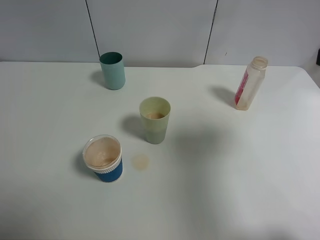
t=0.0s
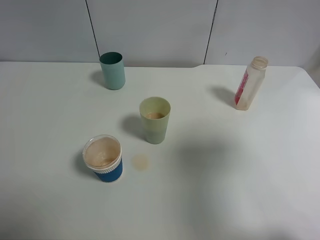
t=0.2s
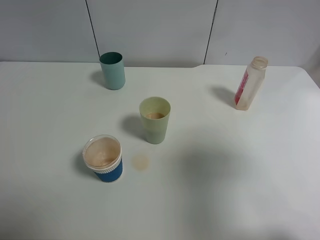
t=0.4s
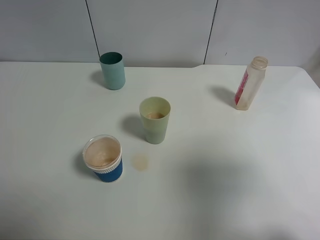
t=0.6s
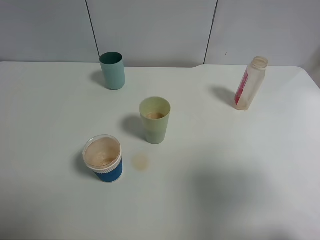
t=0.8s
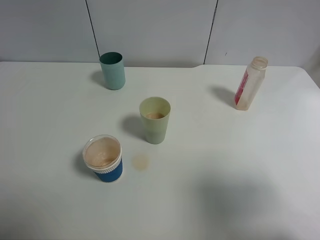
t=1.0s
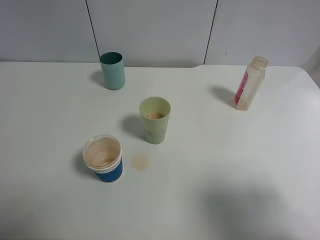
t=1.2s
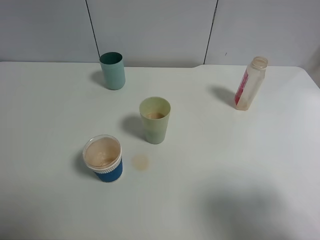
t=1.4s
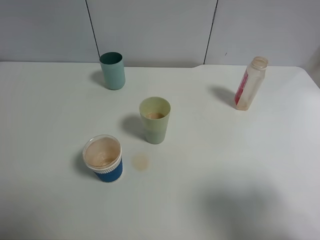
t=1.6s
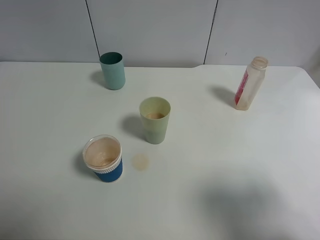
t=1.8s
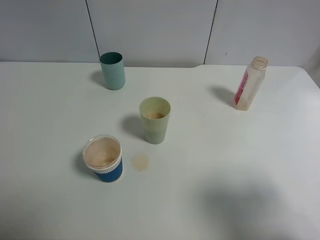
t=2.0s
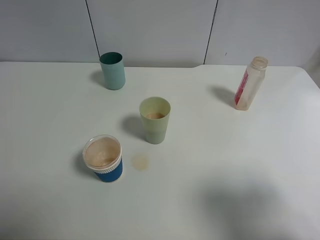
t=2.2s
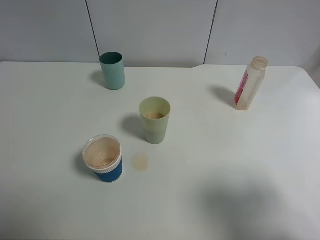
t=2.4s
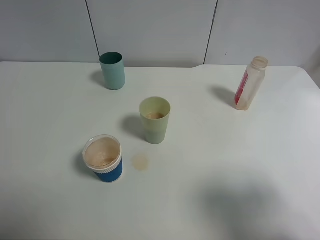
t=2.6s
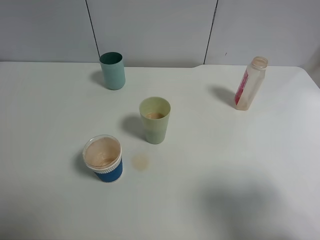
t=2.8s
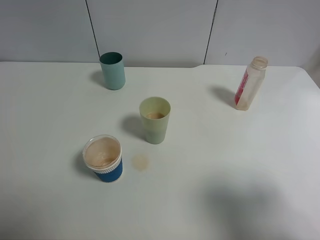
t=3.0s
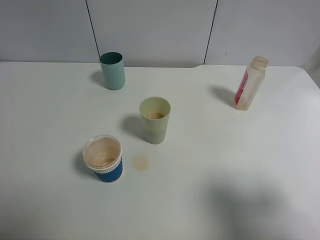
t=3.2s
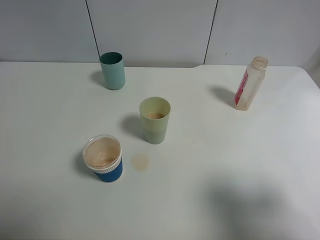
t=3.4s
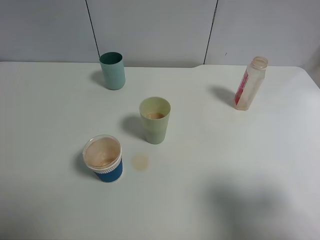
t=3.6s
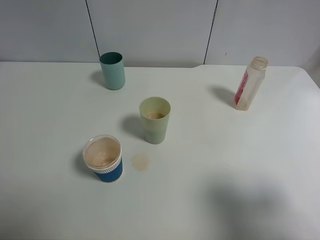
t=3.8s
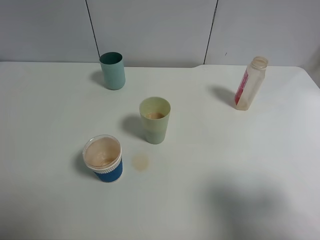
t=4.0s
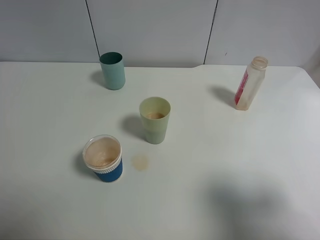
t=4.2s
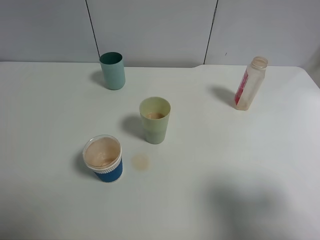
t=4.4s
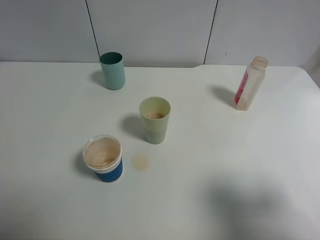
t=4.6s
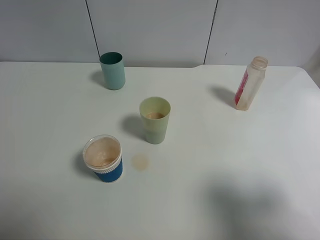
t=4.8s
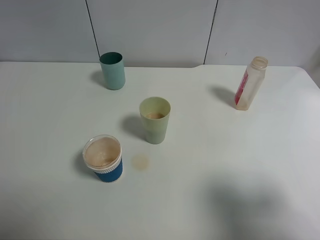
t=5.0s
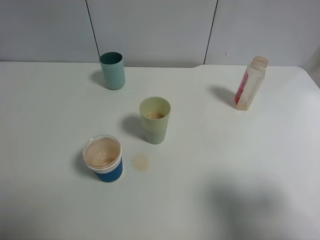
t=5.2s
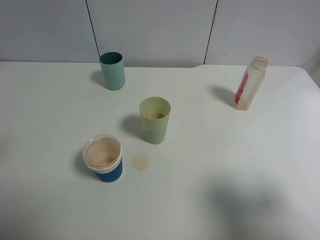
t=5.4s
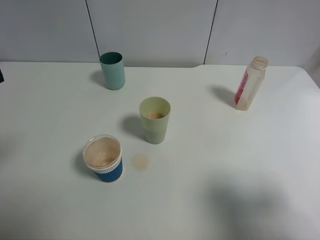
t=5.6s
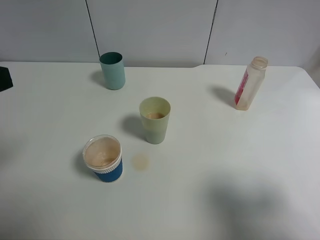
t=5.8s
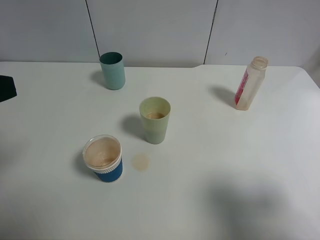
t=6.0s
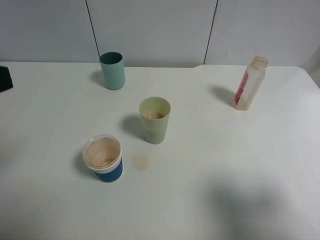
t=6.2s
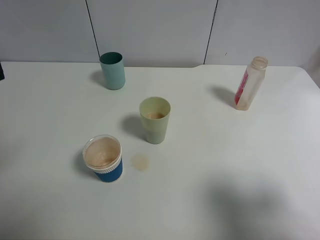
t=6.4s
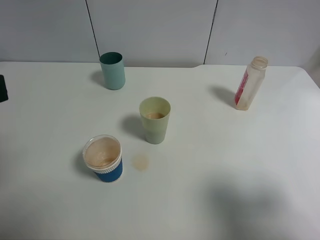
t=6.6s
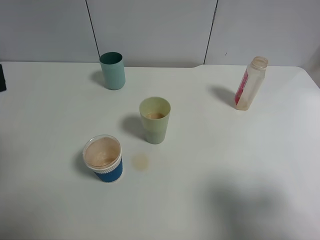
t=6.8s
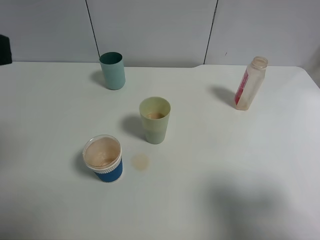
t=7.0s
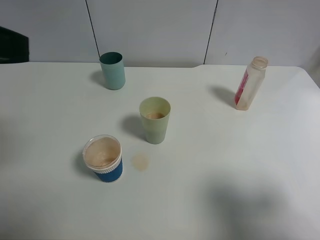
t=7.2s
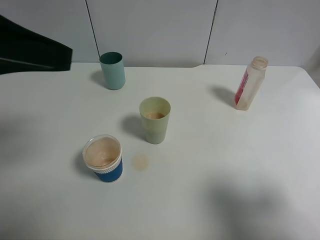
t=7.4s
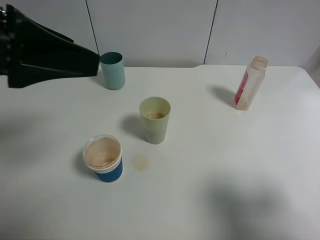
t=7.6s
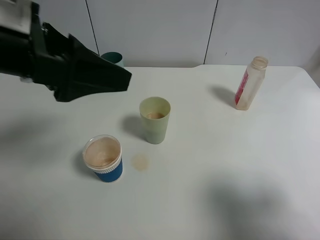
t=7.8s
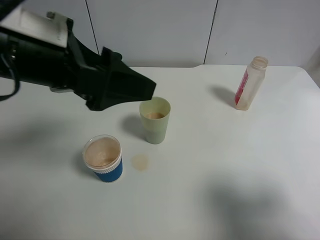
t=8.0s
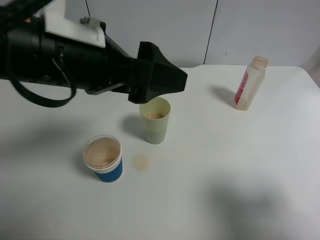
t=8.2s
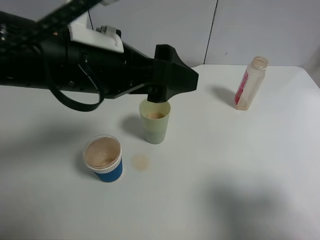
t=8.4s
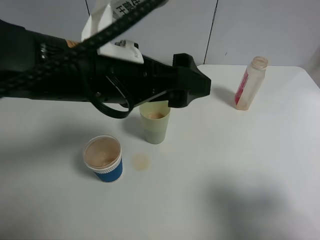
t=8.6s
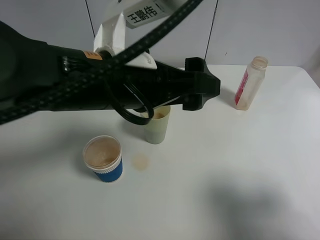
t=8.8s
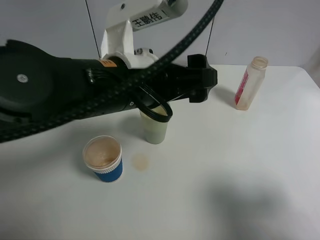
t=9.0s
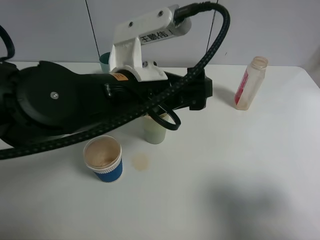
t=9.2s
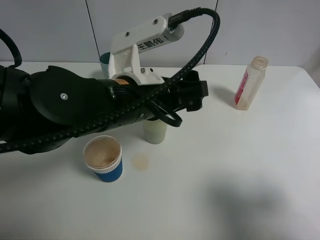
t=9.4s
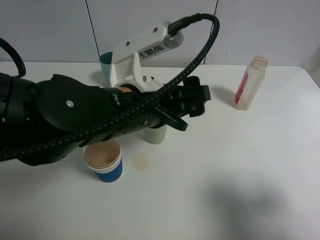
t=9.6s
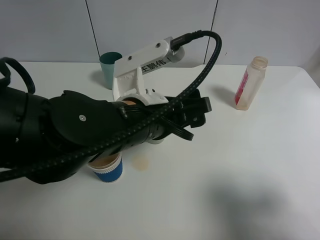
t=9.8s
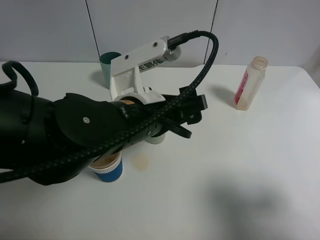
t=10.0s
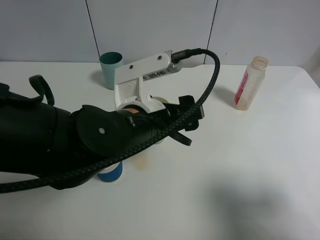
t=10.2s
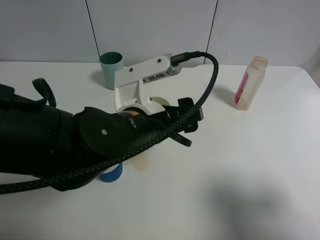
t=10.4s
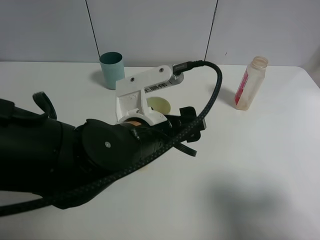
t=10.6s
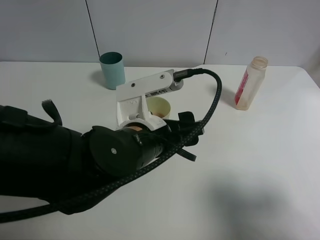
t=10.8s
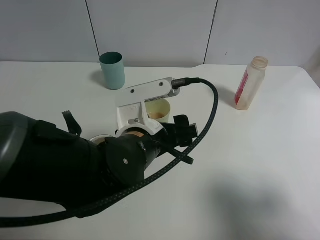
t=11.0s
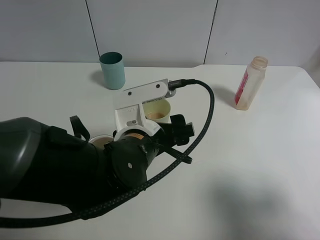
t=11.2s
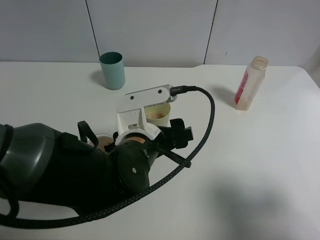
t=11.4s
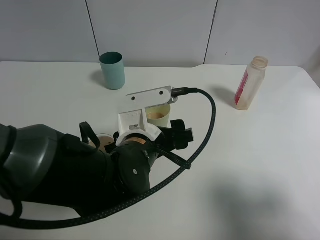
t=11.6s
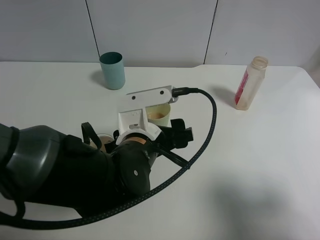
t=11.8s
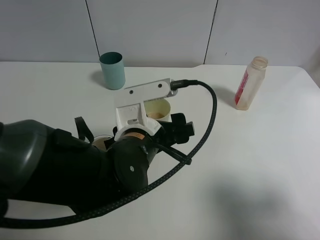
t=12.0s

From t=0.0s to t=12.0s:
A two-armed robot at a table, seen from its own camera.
Task of the whole recording: use a clamp to hold the bottle of the drink, pour the beverage into a random cup, then clamp the cup containing the drink and pour the drink into another random cup.
From t=0.0s to t=1.6s: The right gripper goes approximately 15 cm backward and downward.
From t=1.6s to t=3.0s: Neither gripper changes place.
From t=6.0s to t=7.6s: The left gripper is displaced forward and to the right by about 10 cm.
From t=7.6s to t=9.0s: The left gripper travels to the right and downward by approximately 20 cm.
From t=9.0s to t=10.4s: The left gripper is displaced downward by roughly 10 cm.

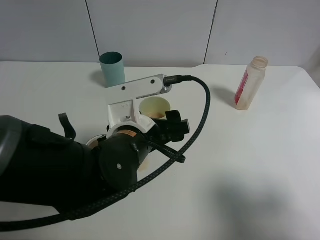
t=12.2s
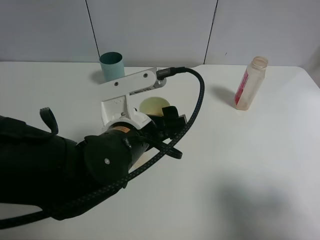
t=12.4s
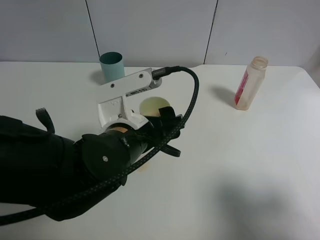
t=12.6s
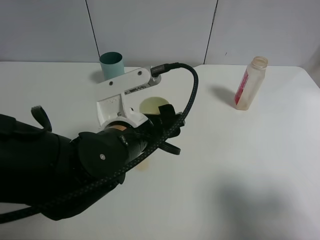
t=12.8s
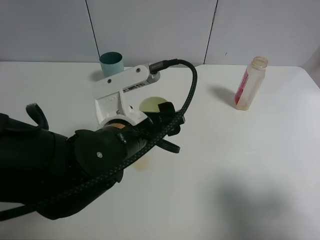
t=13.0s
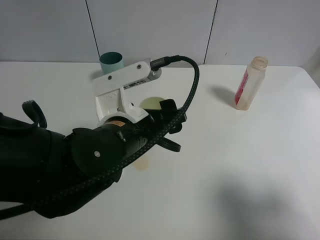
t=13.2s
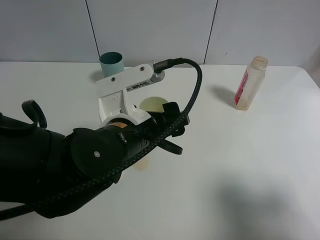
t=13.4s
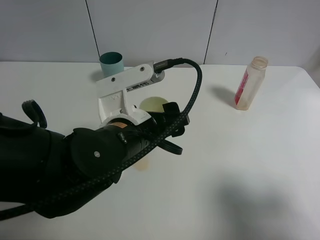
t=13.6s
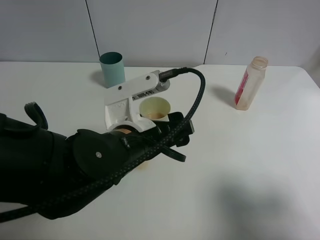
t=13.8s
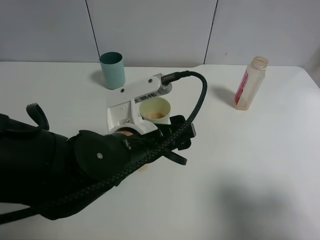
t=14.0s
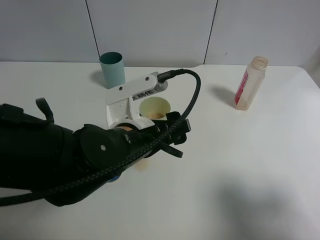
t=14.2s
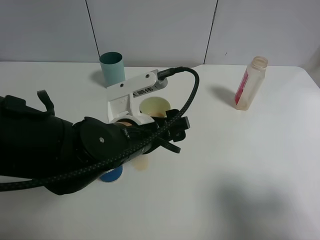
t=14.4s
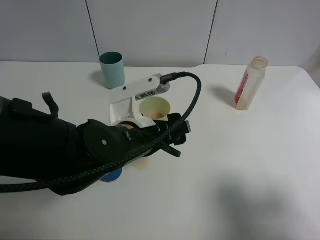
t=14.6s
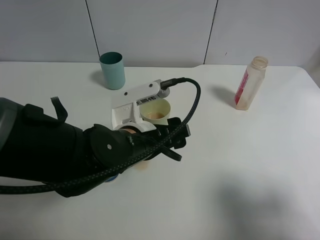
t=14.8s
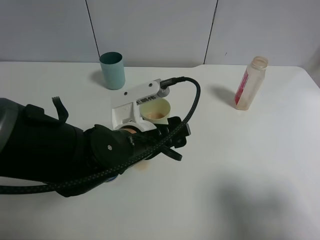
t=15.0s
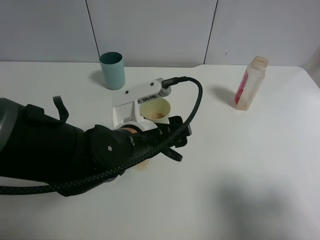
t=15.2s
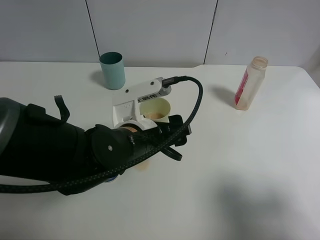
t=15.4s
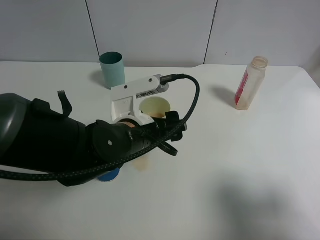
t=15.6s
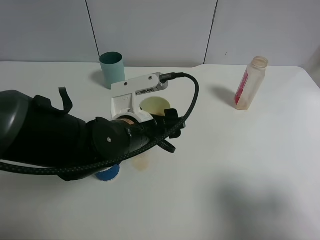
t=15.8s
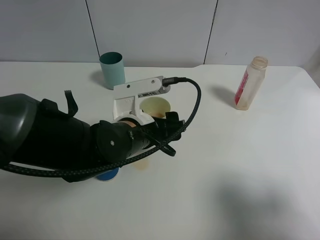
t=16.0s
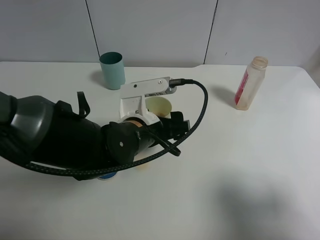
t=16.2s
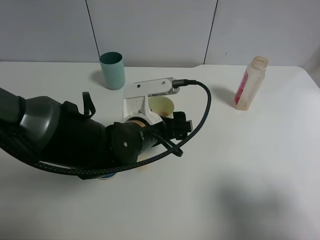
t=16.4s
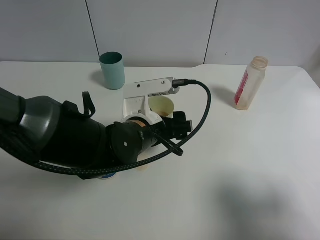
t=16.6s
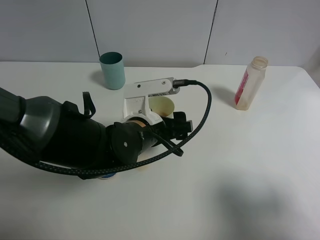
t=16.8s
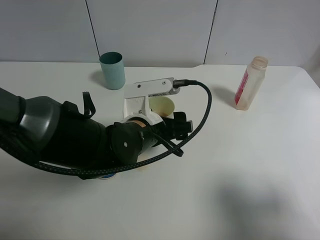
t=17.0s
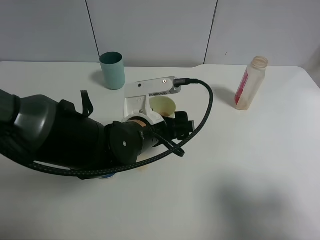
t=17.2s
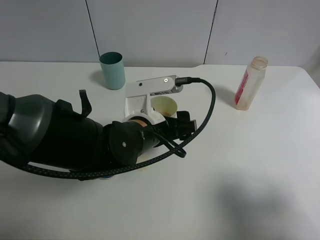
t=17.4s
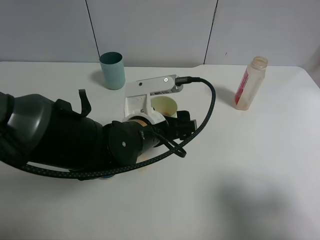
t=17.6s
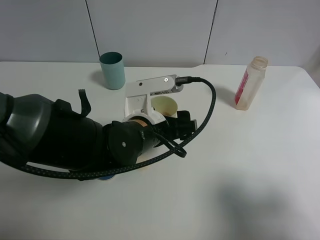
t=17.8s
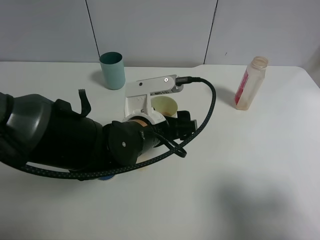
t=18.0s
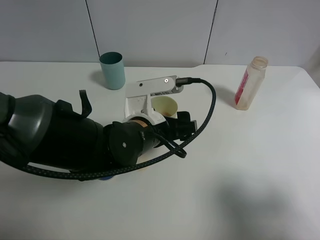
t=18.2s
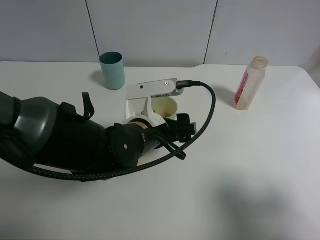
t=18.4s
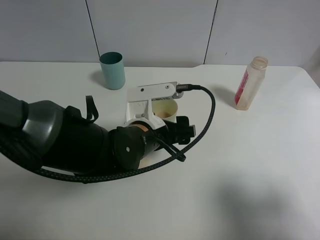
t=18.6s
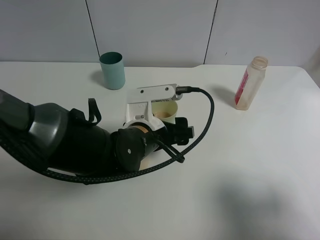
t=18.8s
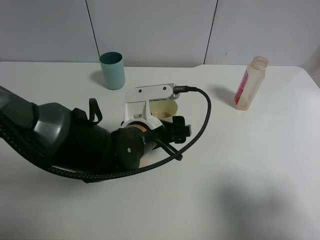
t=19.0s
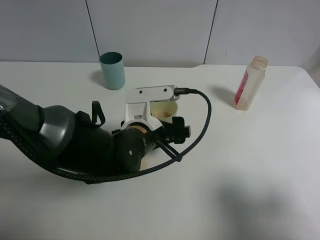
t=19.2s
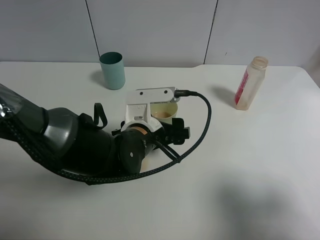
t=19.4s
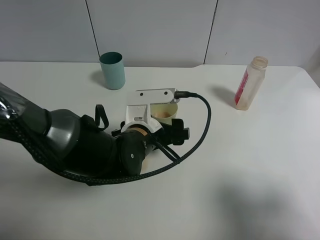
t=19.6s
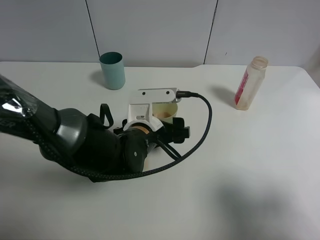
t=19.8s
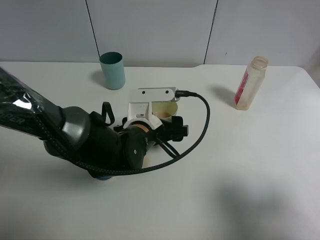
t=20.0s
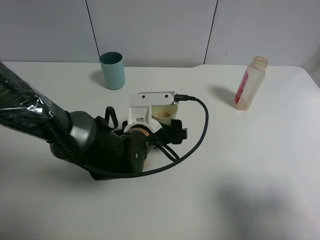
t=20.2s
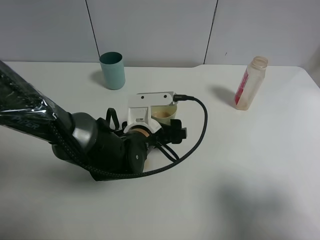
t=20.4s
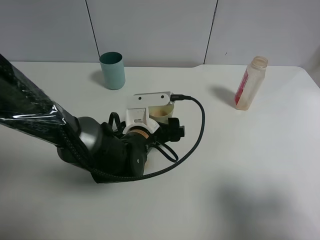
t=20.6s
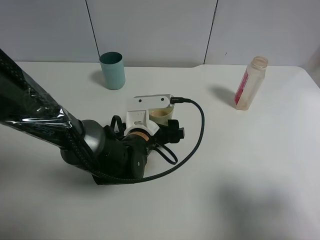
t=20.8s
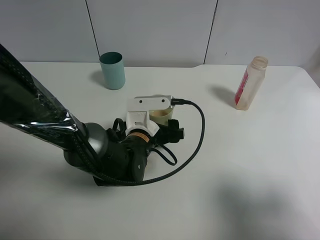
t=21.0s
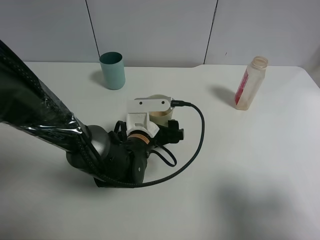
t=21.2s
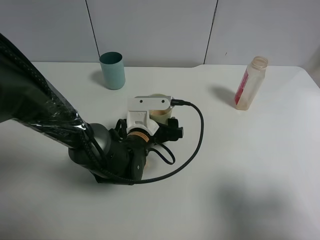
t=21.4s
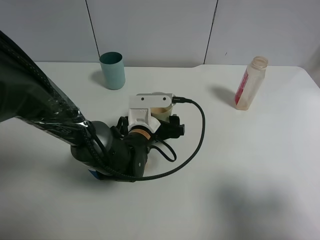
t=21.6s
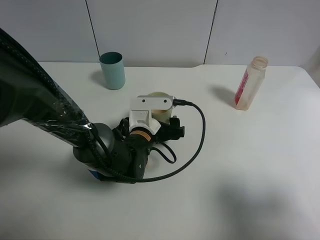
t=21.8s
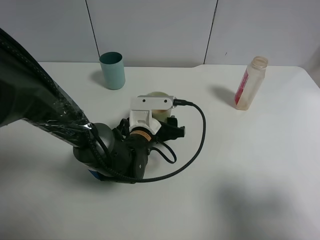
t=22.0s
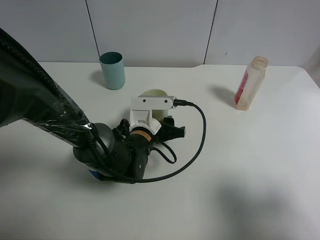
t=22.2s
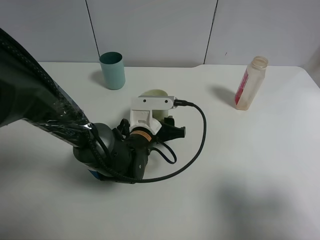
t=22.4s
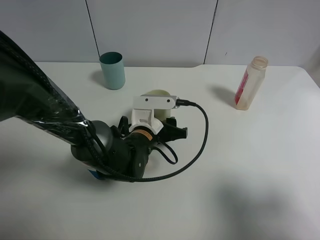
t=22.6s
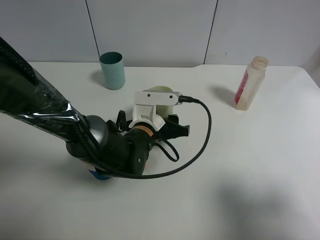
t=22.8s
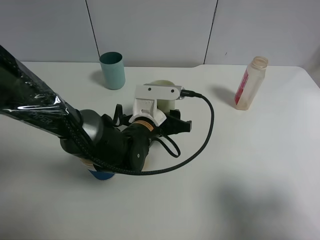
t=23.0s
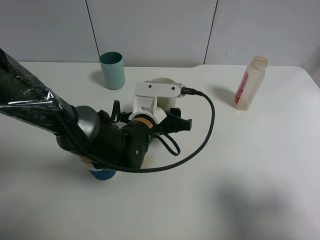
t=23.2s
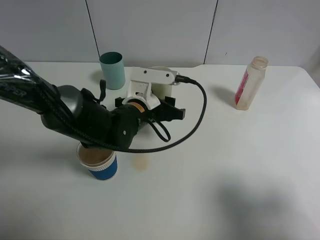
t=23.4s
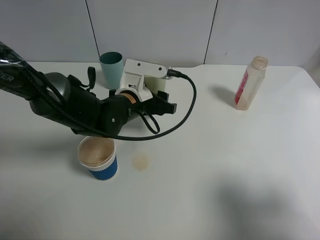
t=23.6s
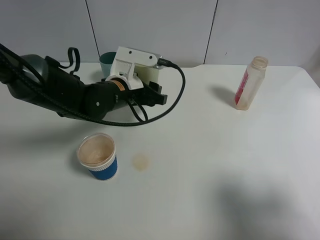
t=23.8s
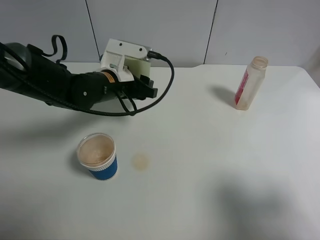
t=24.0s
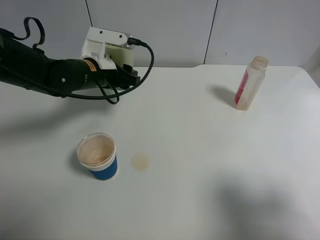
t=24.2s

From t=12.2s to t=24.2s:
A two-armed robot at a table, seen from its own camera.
Task of the whole recording: use a clamp to hold the bottle of the drink, pour the beverage into a random cup, then clamp the cup containing the drink and pour the drink into another random cup.
Step, from t=12.2s to t=23.0s: Pick up the green plastic cup bottle with left gripper.
From t=12.2s to t=16.6s: The grippers move only a little.
From t=16.6s to t=18.2s: Both grippers stay about where they are.
From t=18.2s to t=19.8s: The grippers move only a little.
From t=19.8s to t=21.2s: The grippers make only small movements.
From t=21.2s to t=22.6s: The left gripper closes up.
From t=22.6s to t=24.2s: The left gripper heads upward, to the left and forward, covering some 15 cm.
